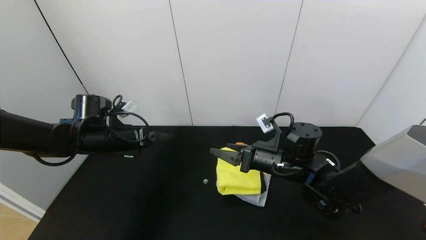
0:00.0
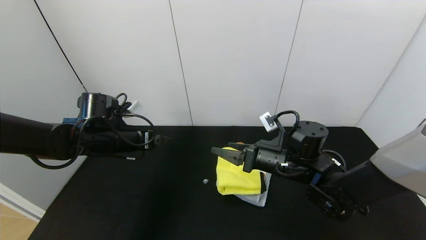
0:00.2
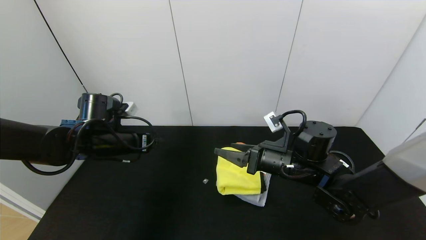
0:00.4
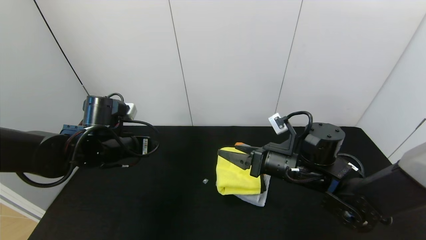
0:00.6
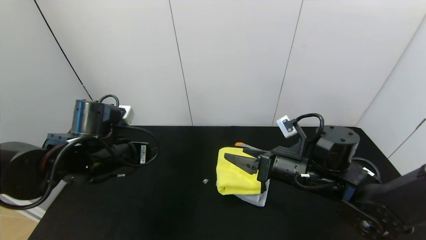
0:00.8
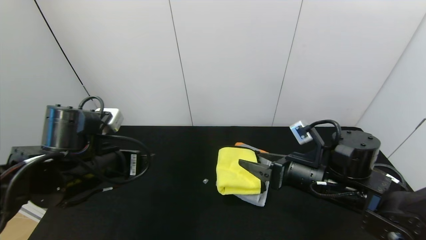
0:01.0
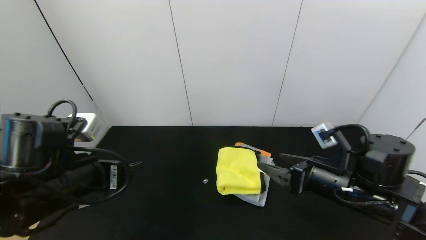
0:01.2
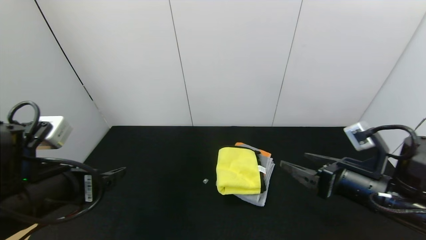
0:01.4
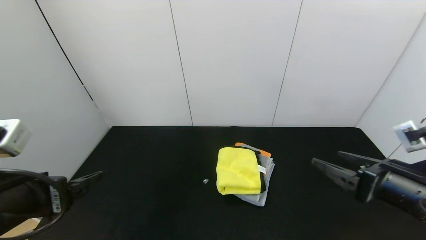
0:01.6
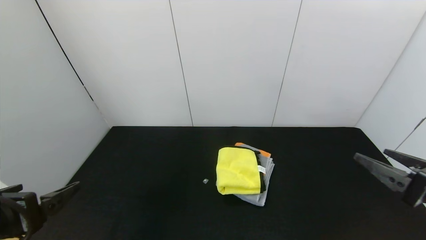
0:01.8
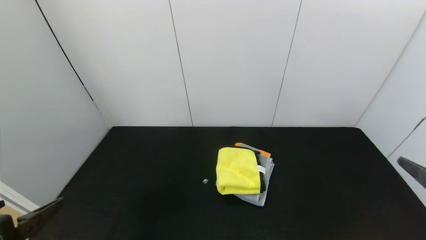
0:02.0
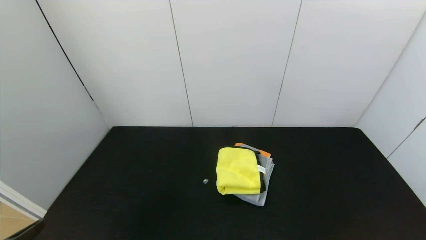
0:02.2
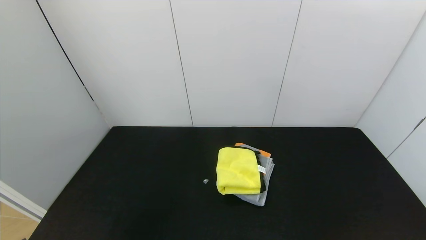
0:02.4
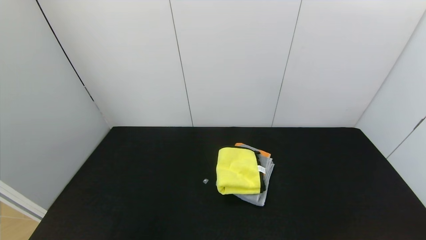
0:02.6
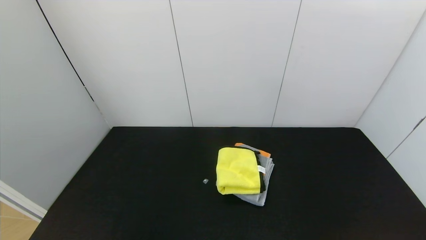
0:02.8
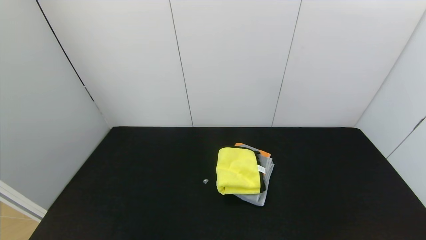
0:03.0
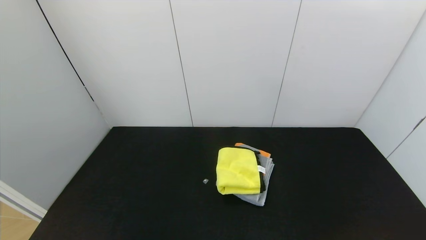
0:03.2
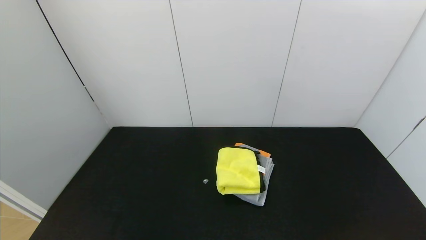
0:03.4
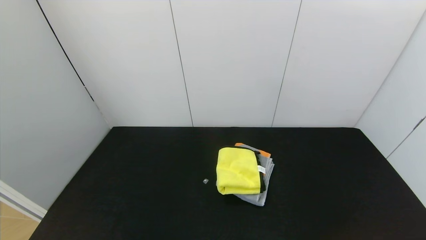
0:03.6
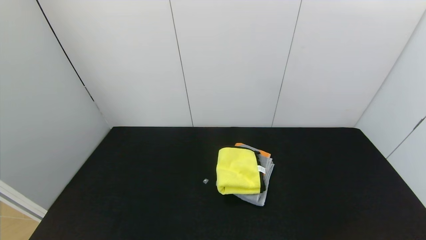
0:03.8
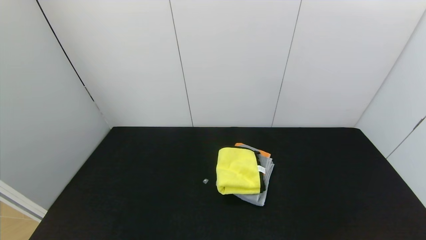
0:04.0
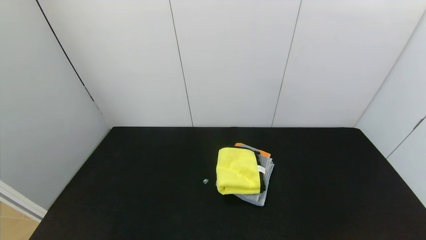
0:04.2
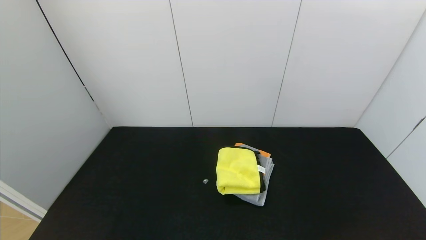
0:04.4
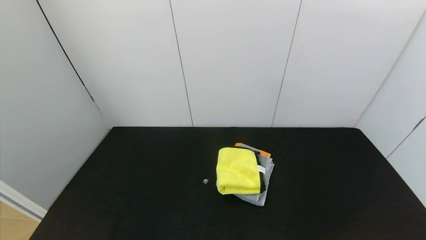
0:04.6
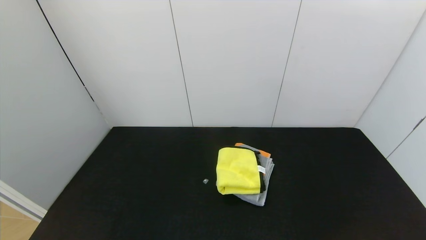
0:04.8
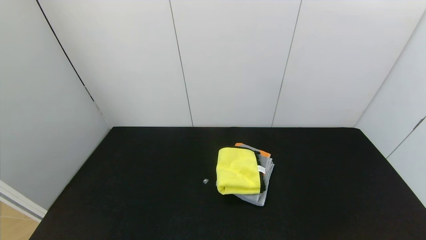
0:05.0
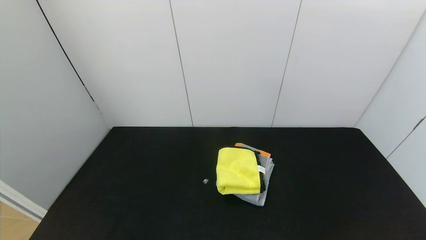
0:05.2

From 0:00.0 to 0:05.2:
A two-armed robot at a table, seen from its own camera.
Task of the whole recording: Use the gripper to fold the yellow towel and grey towel in half twice,then put the yellow towel on the grey towel.
From 0:00.0 to 0:01.8: The left gripper moves backward, approximately 25 cm; the right gripper moves to the right and backward, some 30 cm.
From 0:01.8 to 0:03.4: The two grippers go approximately 15 cm backward.
